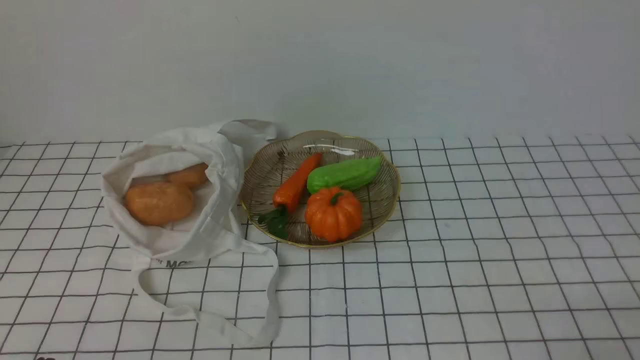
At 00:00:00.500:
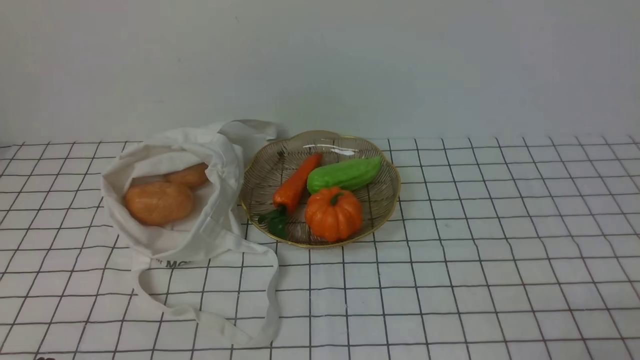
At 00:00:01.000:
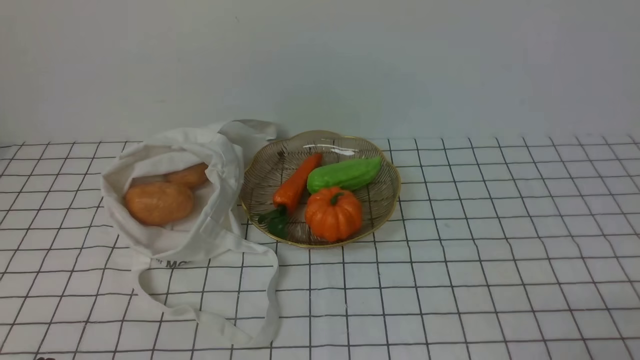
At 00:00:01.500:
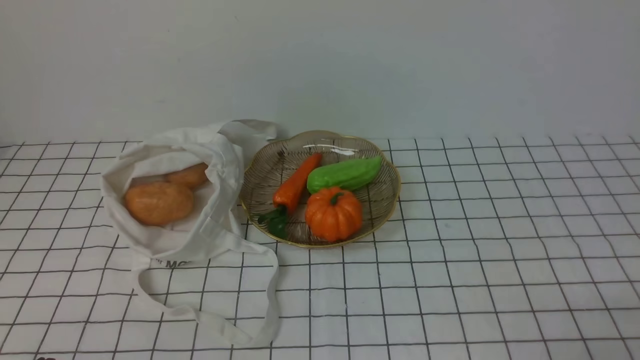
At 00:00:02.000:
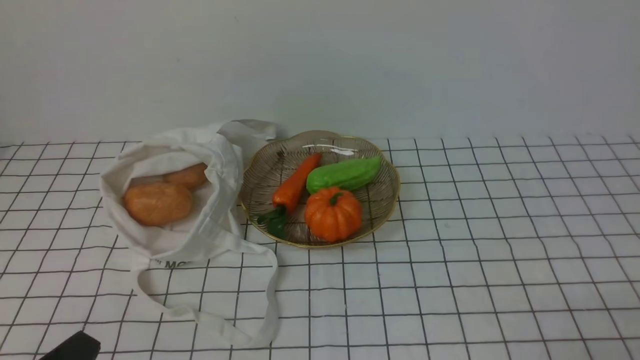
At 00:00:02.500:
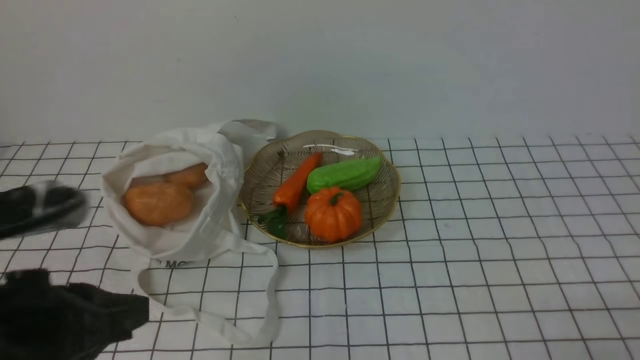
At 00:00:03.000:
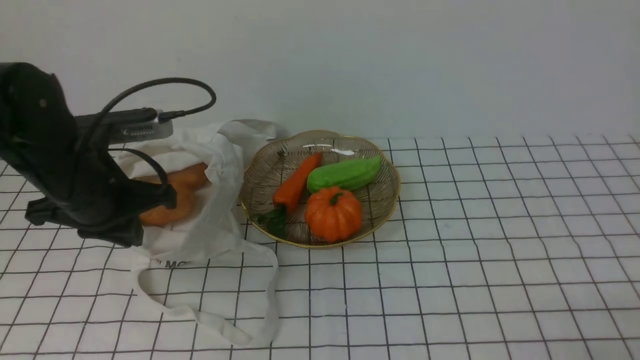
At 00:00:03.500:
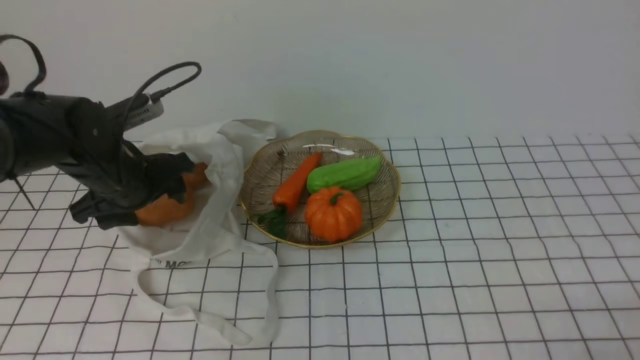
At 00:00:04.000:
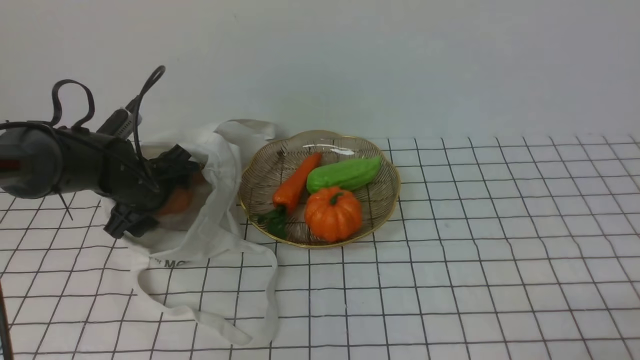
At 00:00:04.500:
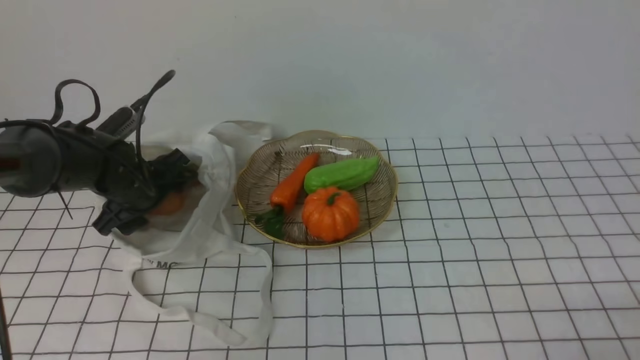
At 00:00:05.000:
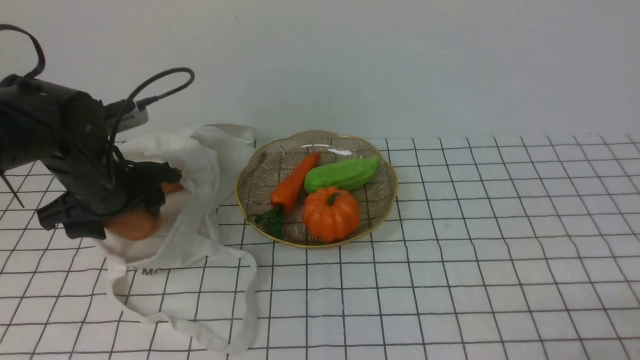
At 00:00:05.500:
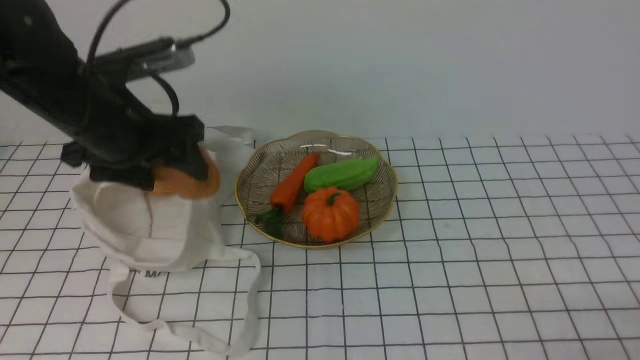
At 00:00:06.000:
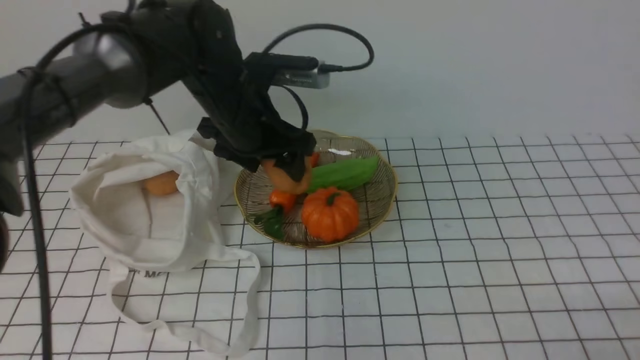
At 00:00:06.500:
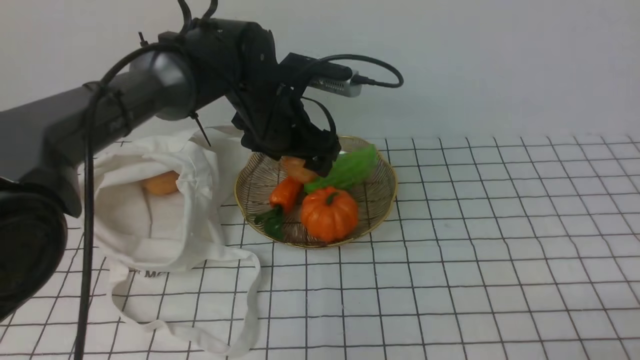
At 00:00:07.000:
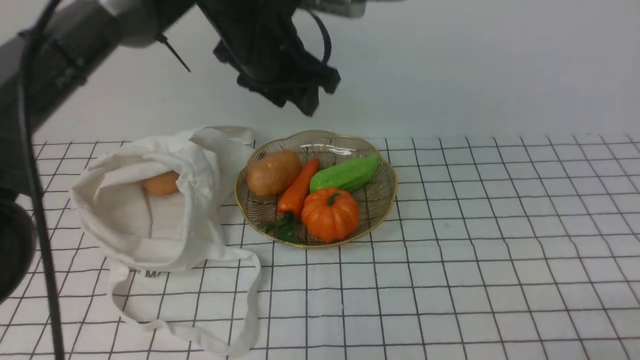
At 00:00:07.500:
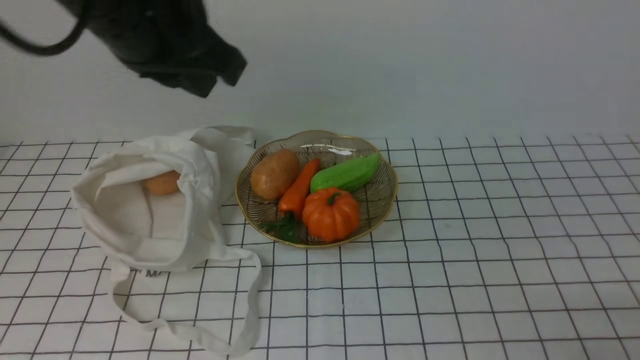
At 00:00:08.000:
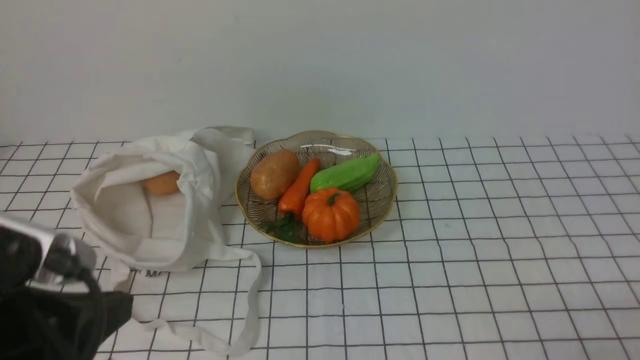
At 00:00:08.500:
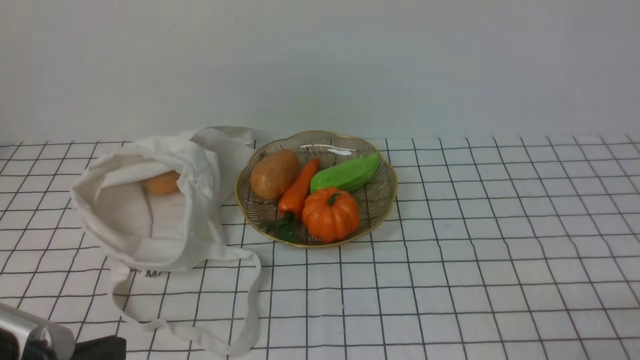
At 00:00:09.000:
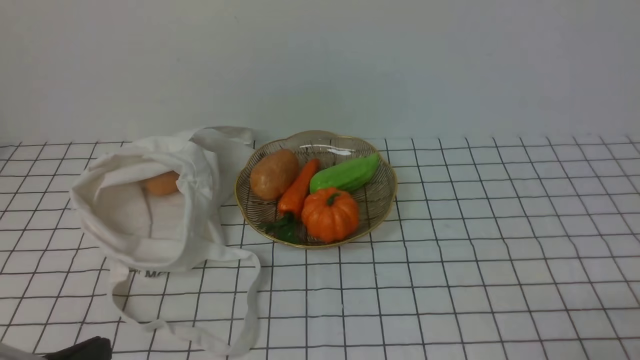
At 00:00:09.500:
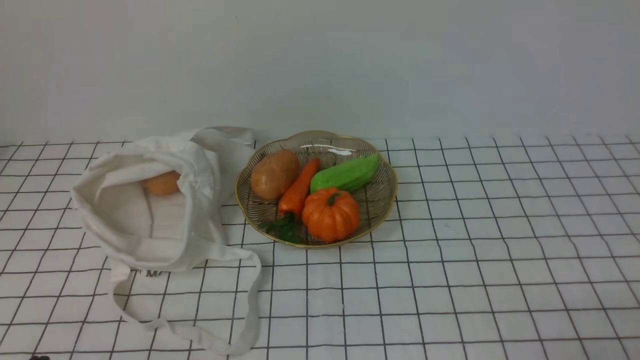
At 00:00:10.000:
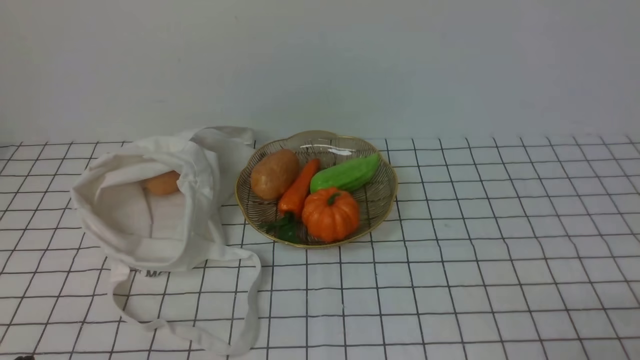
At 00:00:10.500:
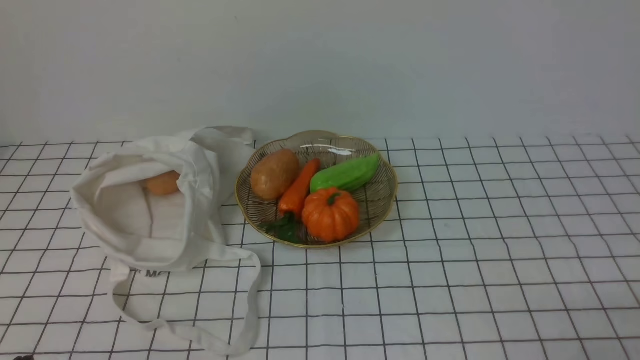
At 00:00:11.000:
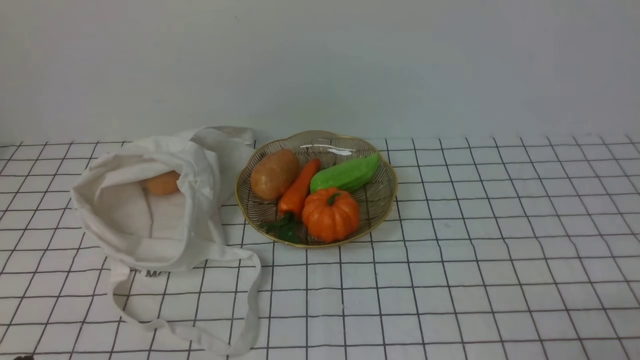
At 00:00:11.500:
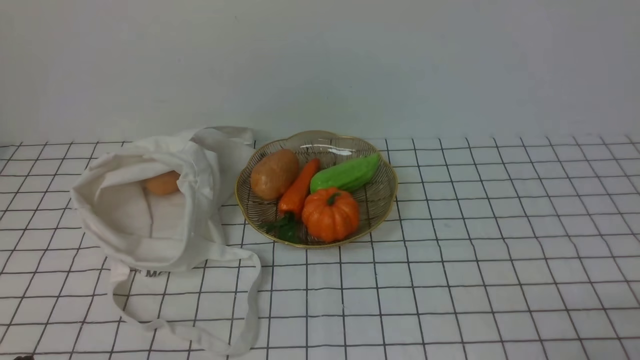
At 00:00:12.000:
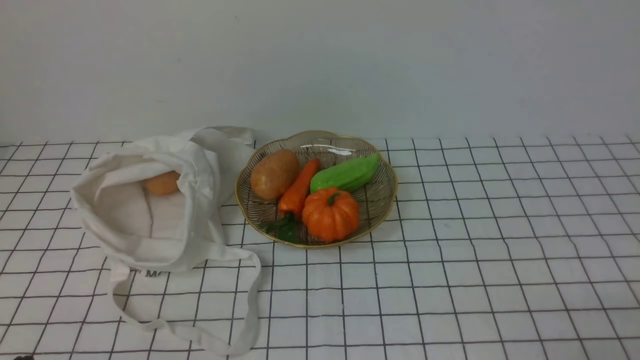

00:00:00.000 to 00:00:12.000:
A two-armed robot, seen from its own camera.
Task of the whole recording: take vegetables from bag on white checkered tablecloth place on plate.
Step, 00:00:00.000 to 00:00:04.000: Grasp the potato with left gripper.
Step, 00:00:05.000 to 00:00:06.500: Place the potato on the plate with left gripper.
00:00:02.000 to 00:00:04.000: The left gripper is displaced forward by roughly 35 cm, and opens.
00:00:04.000 to 00:00:06.000: The left gripper travels upward and to the right by some 15 cm.
00:00:06.000 to 00:00:08.000: The left gripper travels backward by roughly 25 cm, and closes its fingers.
00:00:08.000 to 00:00:10.000: The left gripper goes approximately 20 cm downward and backward.
00:00:10.000 to 00:00:12.000: Both grippers stay about where they are.

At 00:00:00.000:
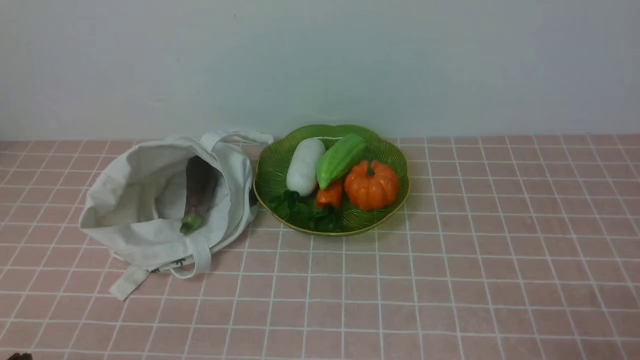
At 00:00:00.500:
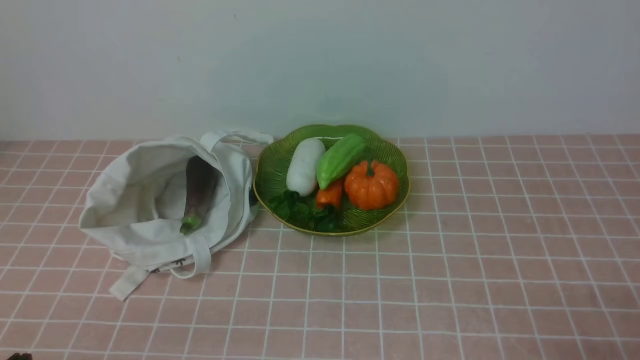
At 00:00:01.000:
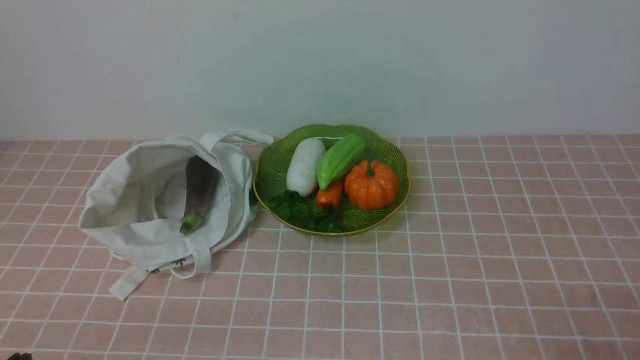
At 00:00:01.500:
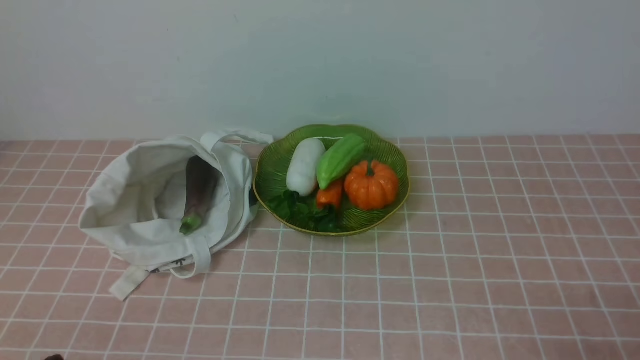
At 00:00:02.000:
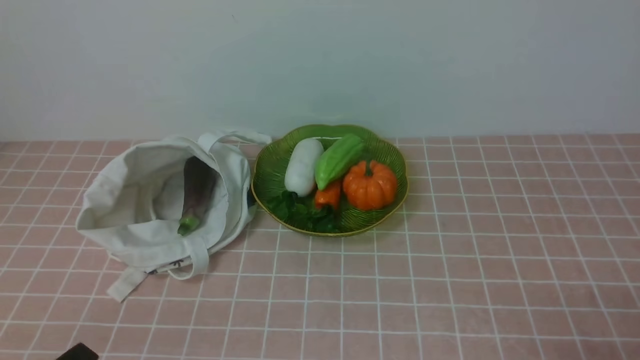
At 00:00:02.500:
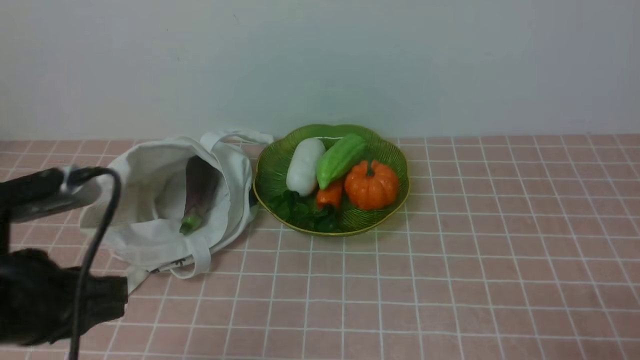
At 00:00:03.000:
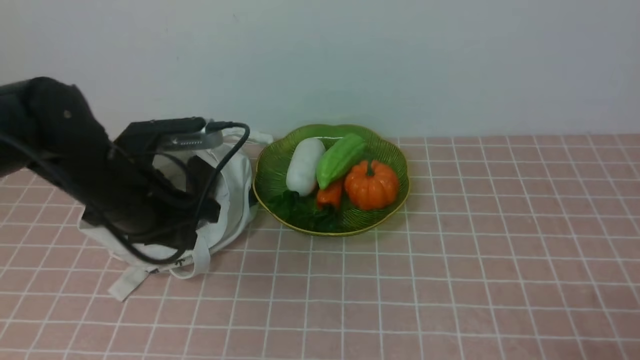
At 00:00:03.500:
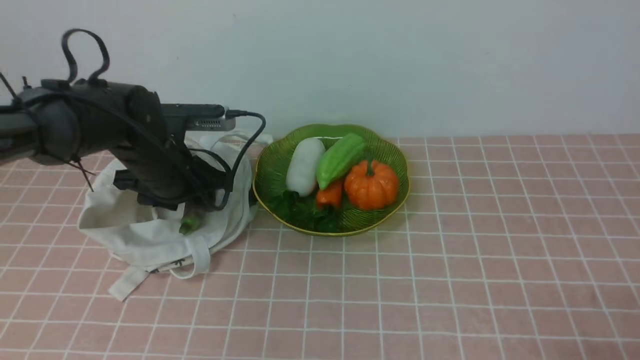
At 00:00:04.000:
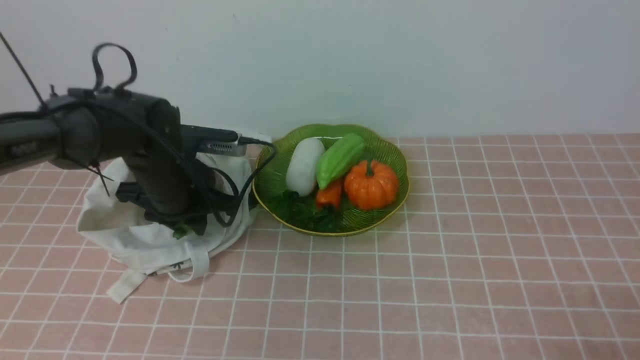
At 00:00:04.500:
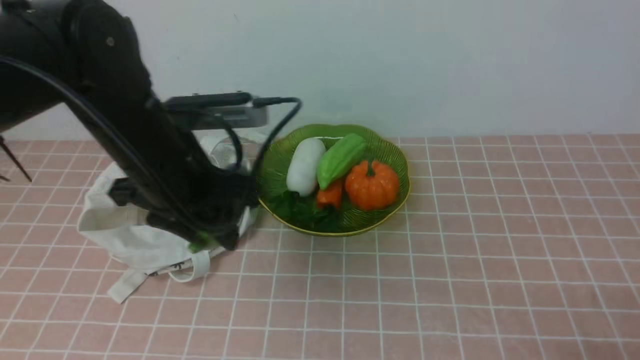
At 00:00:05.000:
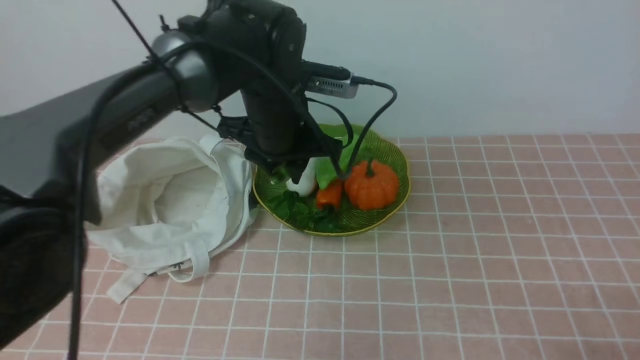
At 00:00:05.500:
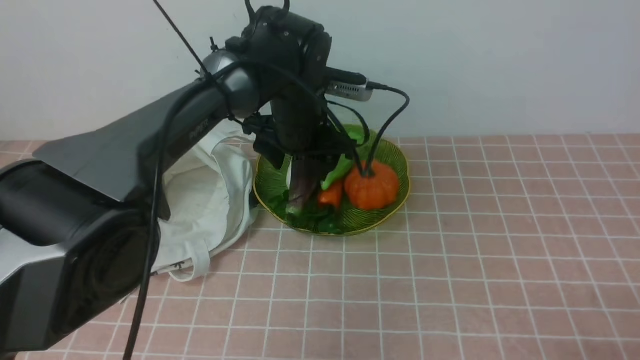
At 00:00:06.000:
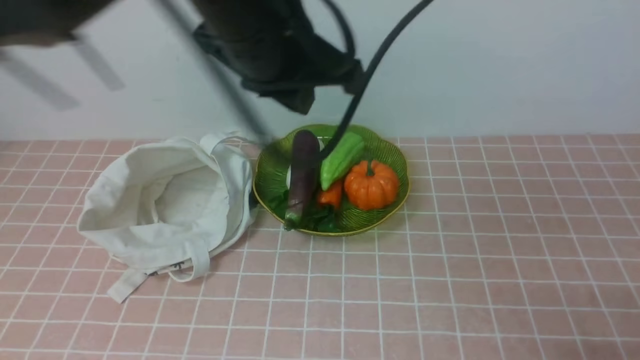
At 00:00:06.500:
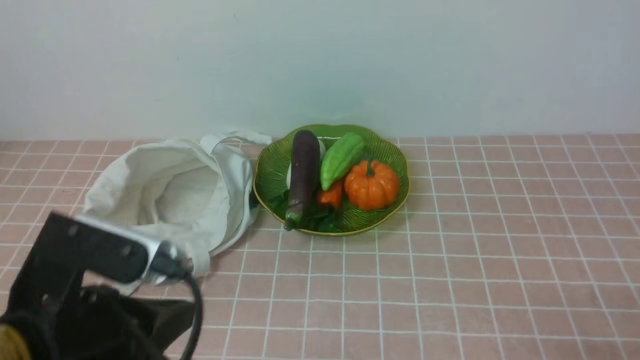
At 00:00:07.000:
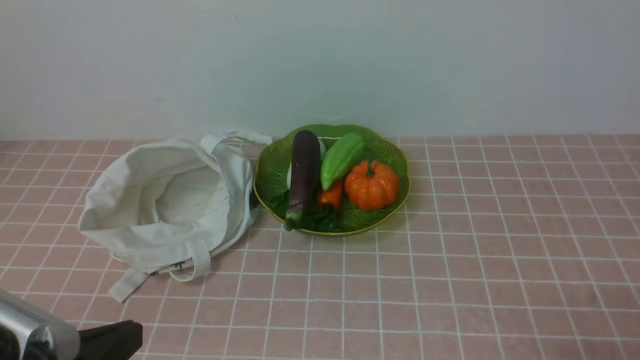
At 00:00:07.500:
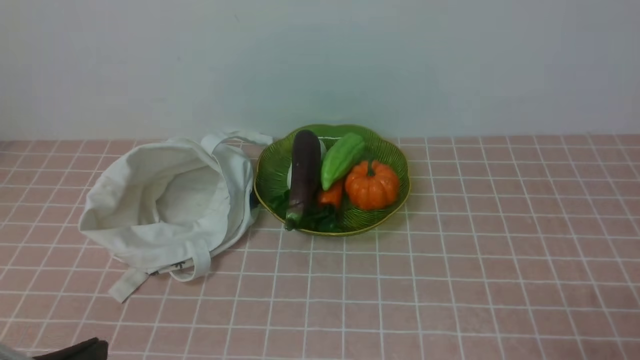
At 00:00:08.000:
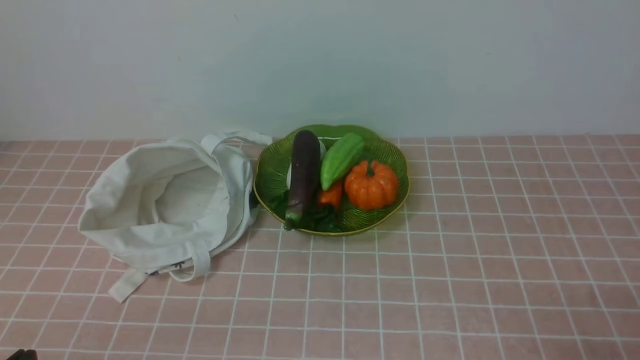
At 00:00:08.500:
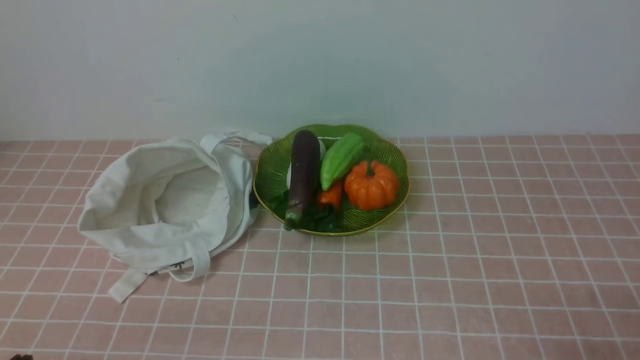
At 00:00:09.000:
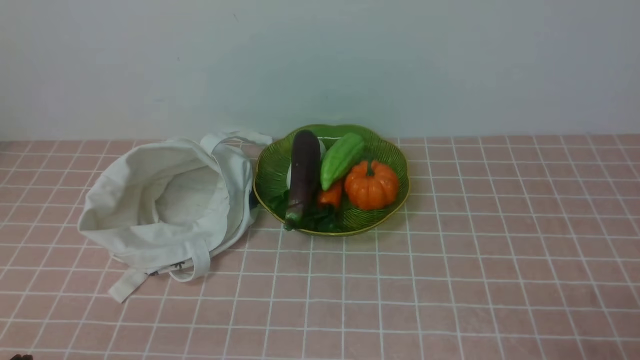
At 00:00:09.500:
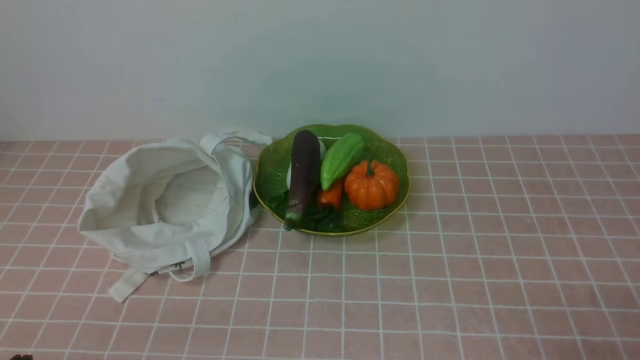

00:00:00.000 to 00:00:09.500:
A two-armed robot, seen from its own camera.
Task of the whole recording: take vegetables from bag on pink coffee tablecloth place on plate.
Step, 00:00:00.000 to 00:00:03.500: Grasp the eggplant with left gripper.
Step, 00:00:04.000 to 00:00:05.500: Place the eggplant on the plate with left gripper.
00:00:02.000 to 00:00:04.000: The left gripper travels forward by approximately 30 cm, and opens.
00:00:04.000 to 00:00:05.500: The left gripper is displaced to the right by some 15 cm, and opens.
00:00:05.500 to 00:00:07.500: The left gripper goes approximately 40 cm backward and to the left, and closes up.
